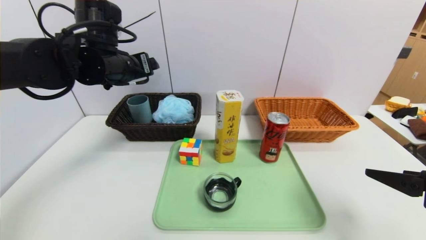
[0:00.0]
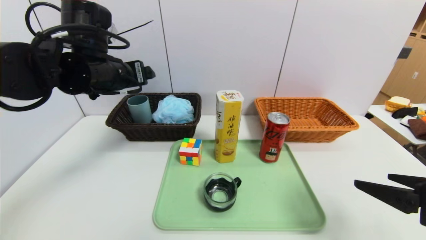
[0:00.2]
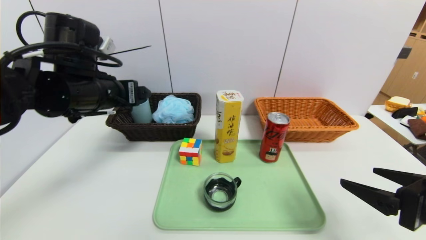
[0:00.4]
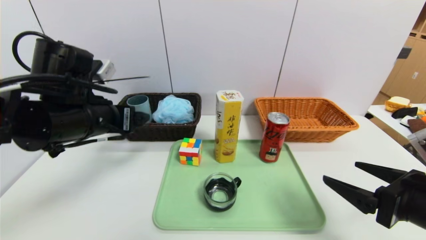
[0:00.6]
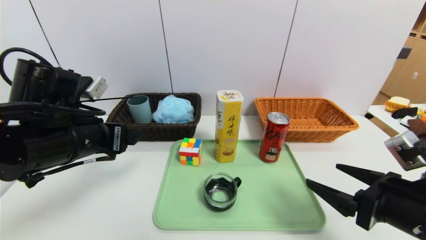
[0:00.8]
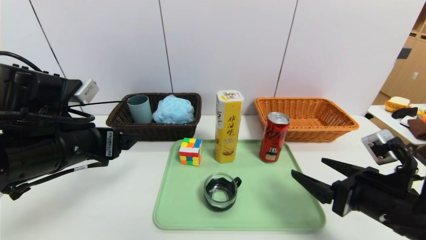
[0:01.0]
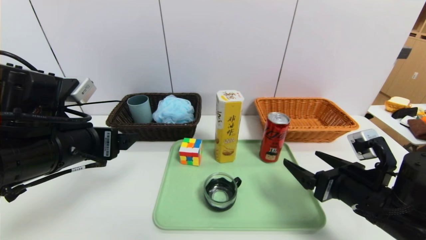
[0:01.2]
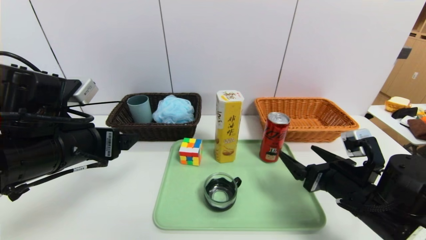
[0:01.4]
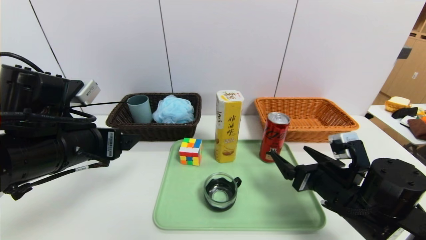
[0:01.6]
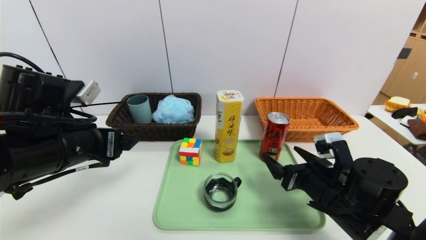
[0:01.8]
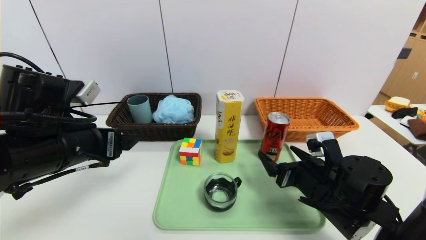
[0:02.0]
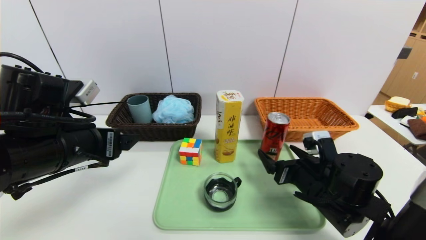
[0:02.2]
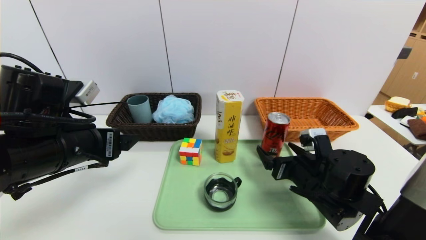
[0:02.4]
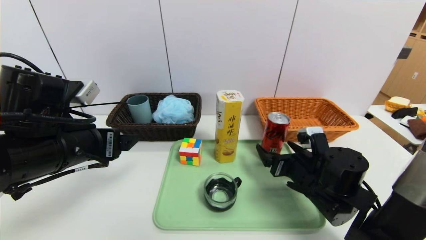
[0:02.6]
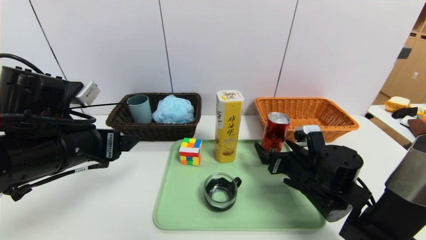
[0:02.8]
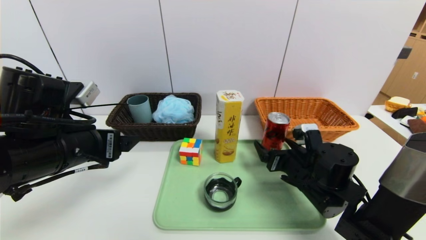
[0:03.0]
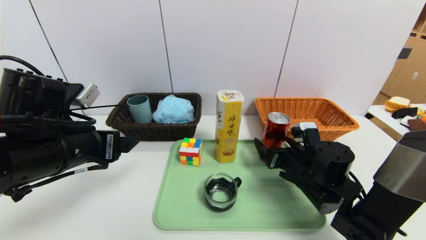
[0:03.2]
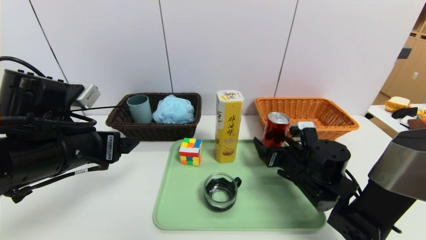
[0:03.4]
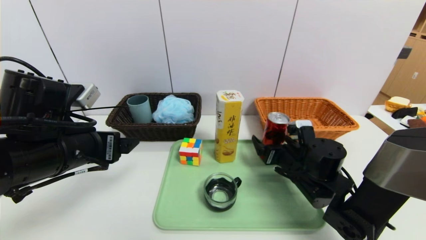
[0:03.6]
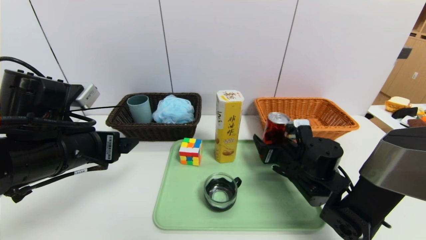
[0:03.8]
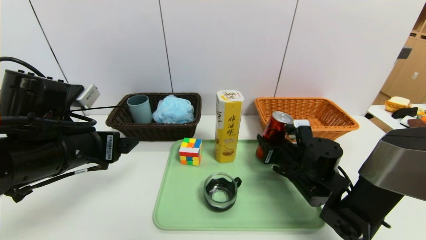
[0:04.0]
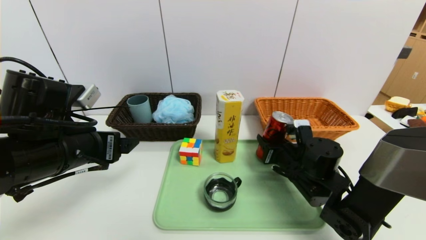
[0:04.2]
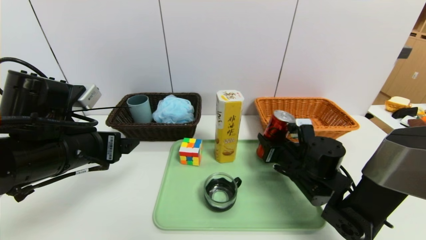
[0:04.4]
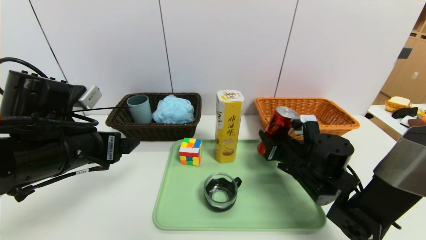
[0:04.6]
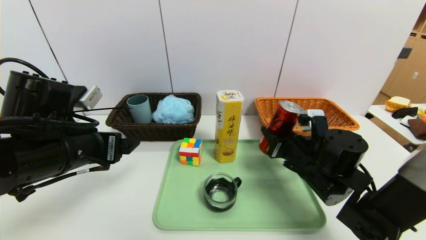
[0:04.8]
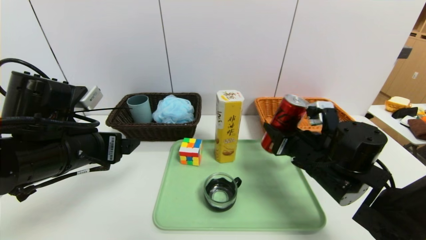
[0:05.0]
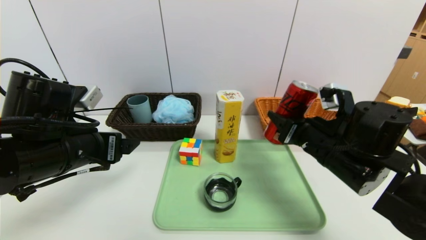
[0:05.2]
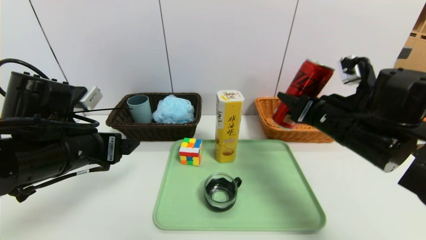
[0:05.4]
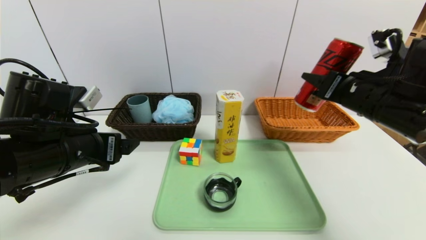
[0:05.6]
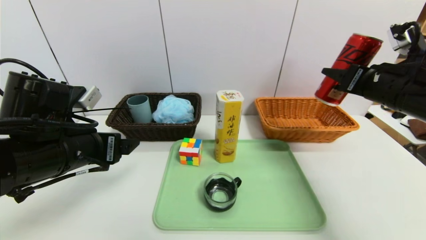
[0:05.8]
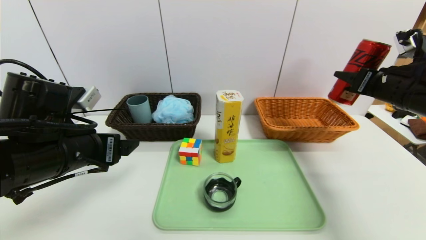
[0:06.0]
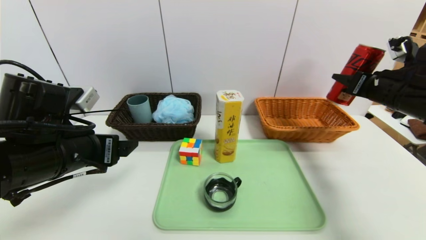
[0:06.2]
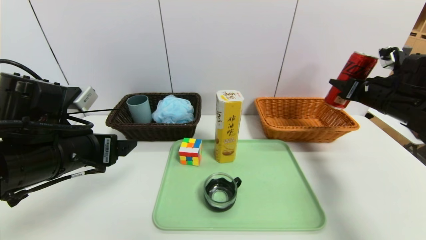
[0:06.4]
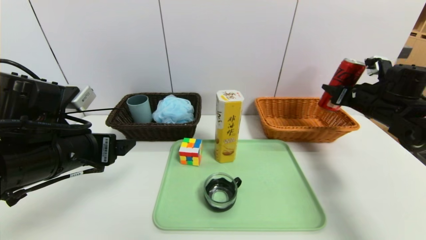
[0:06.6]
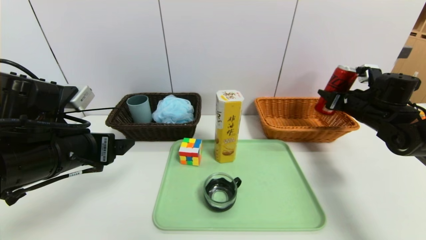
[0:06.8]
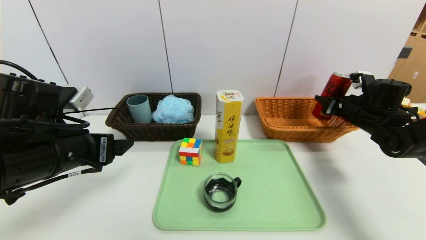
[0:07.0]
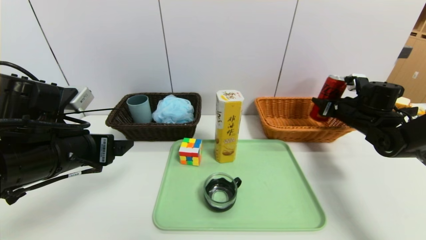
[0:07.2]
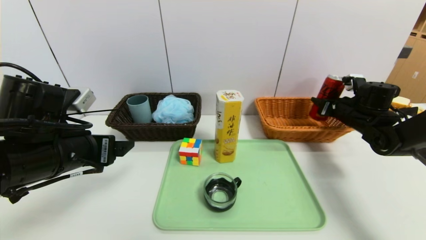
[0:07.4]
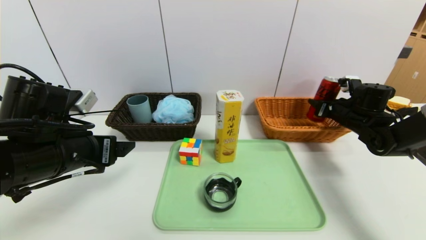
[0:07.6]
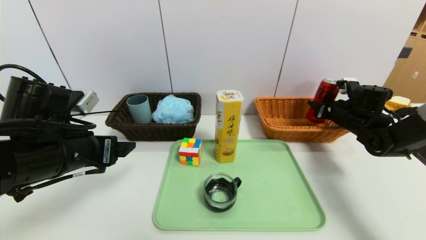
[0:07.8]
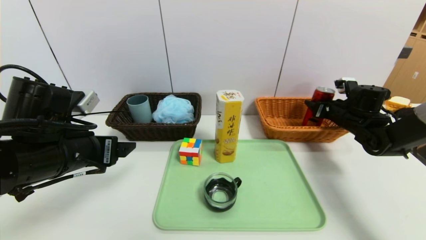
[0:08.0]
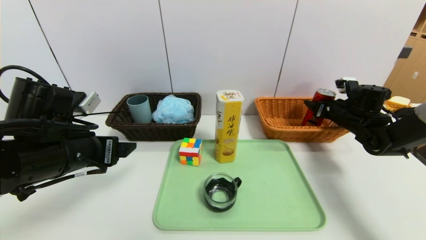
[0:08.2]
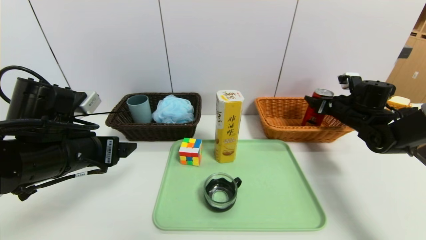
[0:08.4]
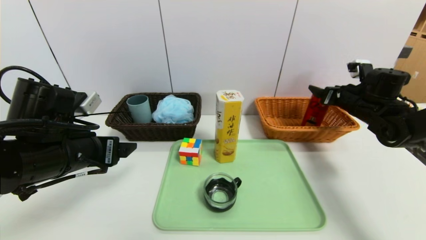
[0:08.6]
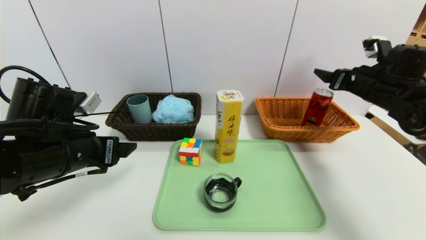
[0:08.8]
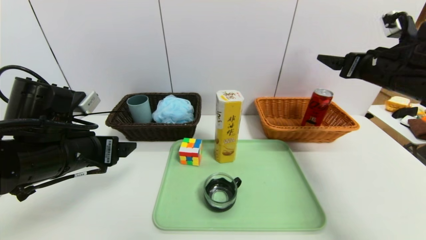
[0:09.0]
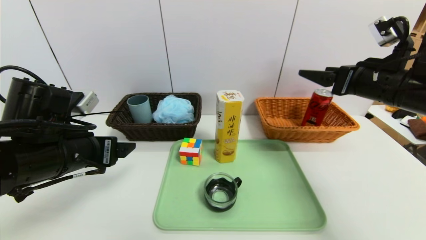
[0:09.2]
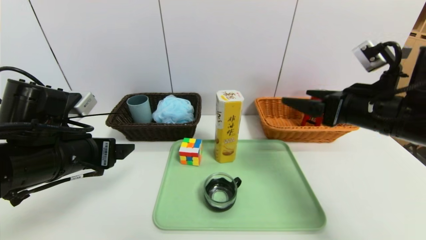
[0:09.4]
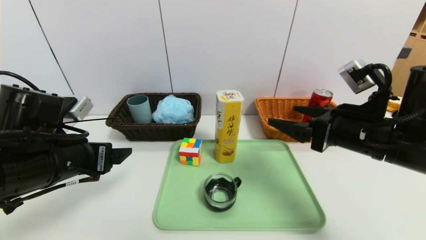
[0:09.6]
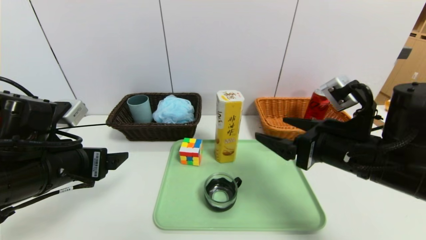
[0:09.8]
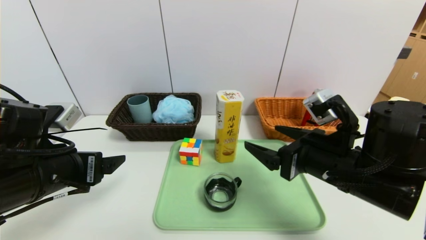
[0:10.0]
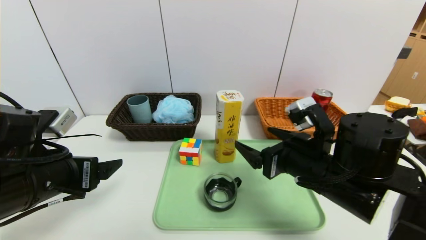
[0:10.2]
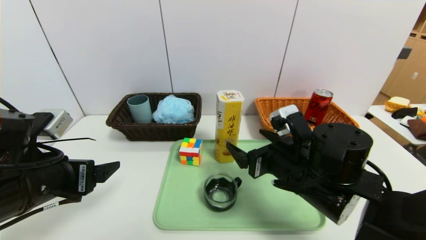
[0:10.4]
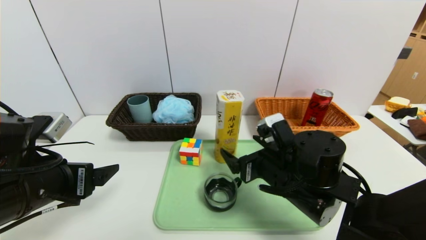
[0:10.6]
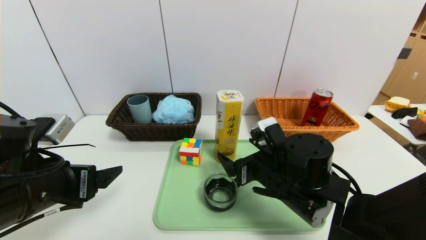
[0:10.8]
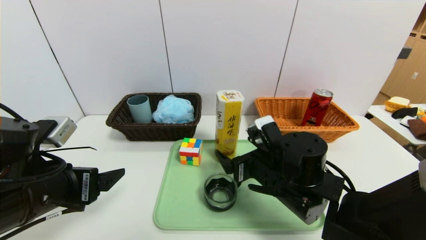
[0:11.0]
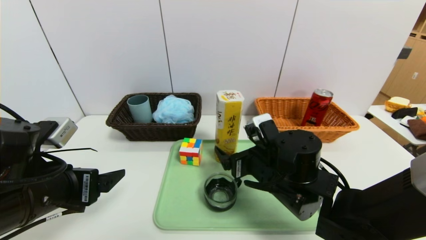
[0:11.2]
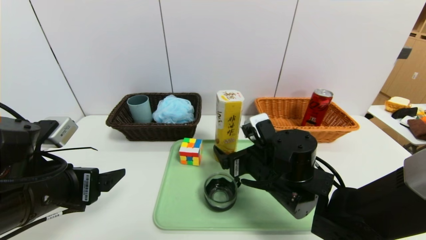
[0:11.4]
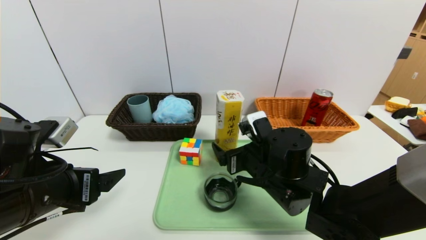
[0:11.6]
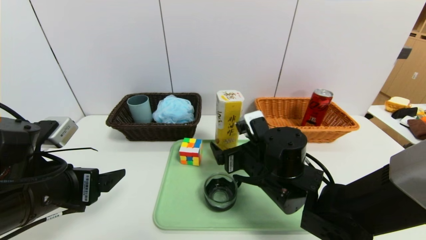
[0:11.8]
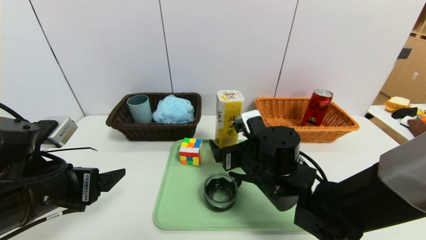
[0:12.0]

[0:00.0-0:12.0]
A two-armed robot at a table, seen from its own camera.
Task of the whole recording: place the food in the right basket with the right gripper, and place the non food items in the left basket with the left gripper.
Step, 0:00.0 to 0:08.6: Grasp the canned cola and put it in the right basket.
0:00.0 to 0:01.6: The left gripper heads backward and downward, covering about 15 cm. The right gripper is displaced downward, to the left and forward by about 20 cm.
0:01.6 to 0:03.0: The right gripper shifts roughly 5 cm forward.
0:03.0 to 0:04.4: The right gripper closes up.
0:04.4 to 0:06.0: The right gripper is displaced upward and to the right by about 25 cm.
0:06.0 to 0:07.6: The right gripper is displaced downward and forward by roughly 15 cm.
0:07.6 to 0:09.0: The right gripper goes some 15 cm upward and backward, and opens.
0:09.0 to 0:10.4: The right gripper shifts about 25 cm to the left, downward and backward. Meanwhile the left gripper changes place by some 5 cm.
0:10.4 to 0:12.0: The right gripper travels to the left by approximately 5 cm.

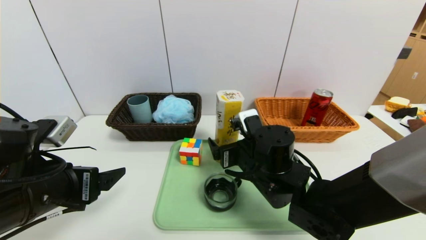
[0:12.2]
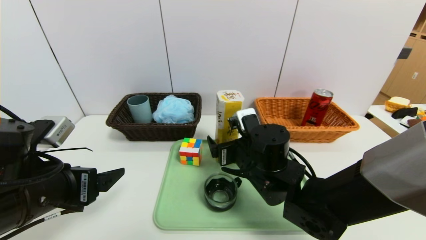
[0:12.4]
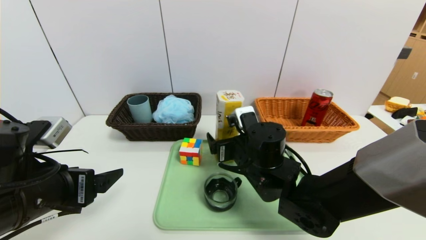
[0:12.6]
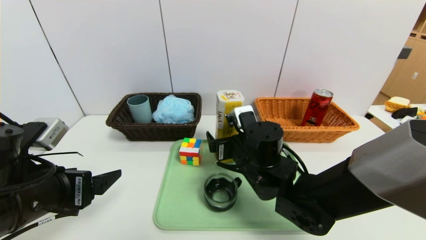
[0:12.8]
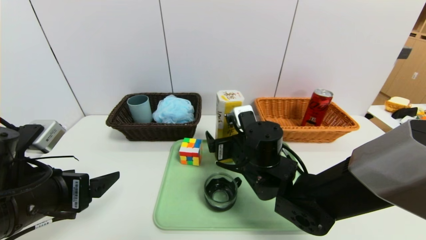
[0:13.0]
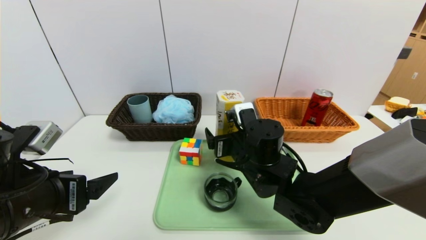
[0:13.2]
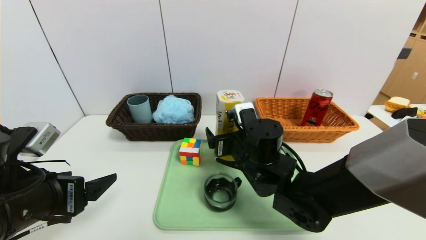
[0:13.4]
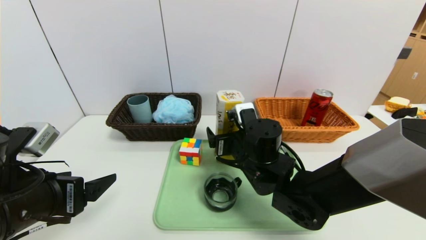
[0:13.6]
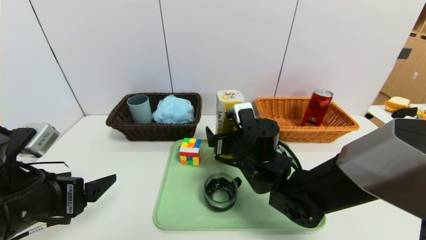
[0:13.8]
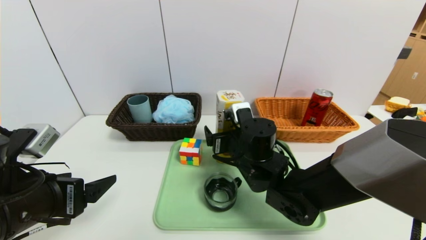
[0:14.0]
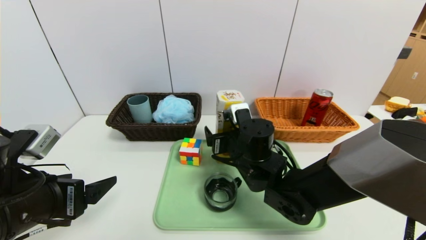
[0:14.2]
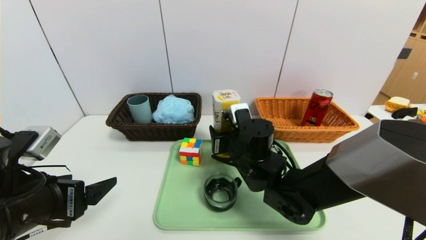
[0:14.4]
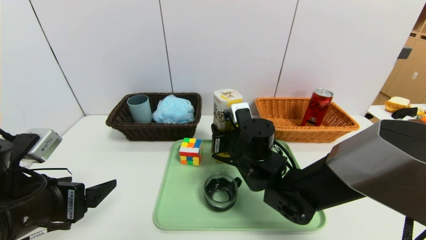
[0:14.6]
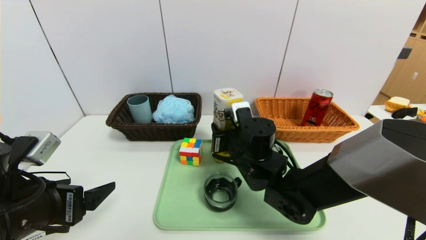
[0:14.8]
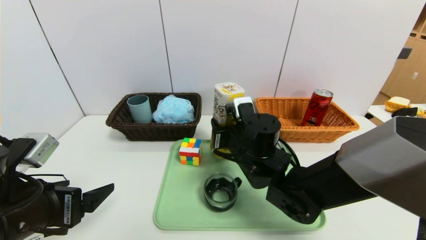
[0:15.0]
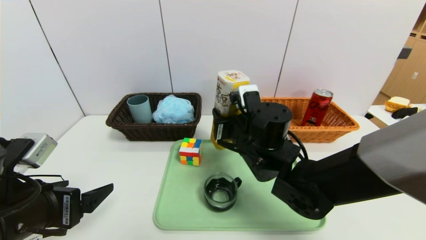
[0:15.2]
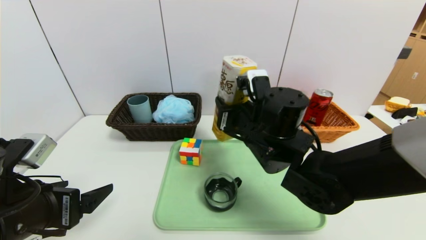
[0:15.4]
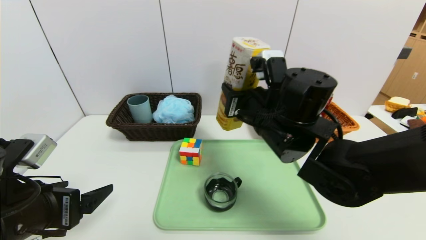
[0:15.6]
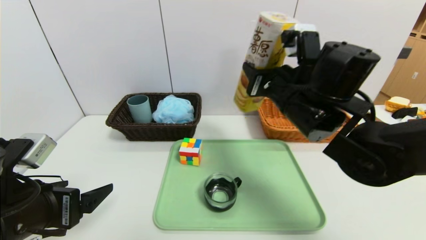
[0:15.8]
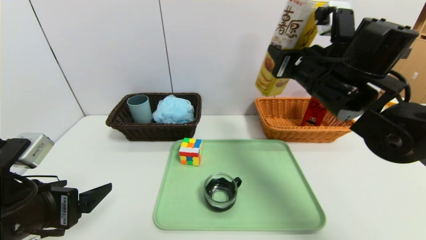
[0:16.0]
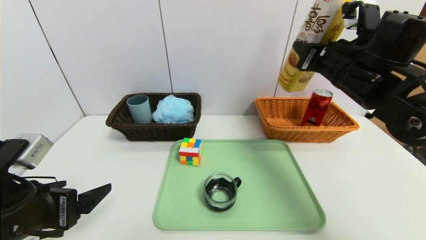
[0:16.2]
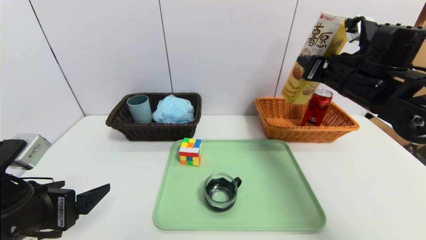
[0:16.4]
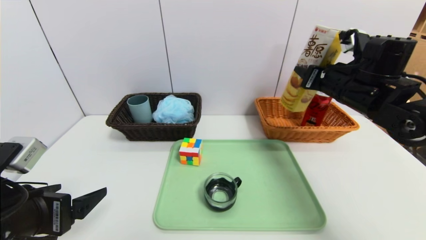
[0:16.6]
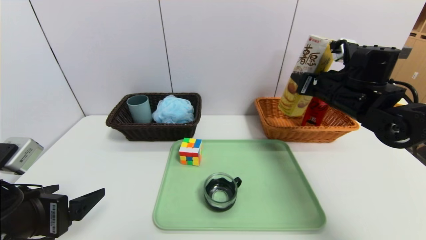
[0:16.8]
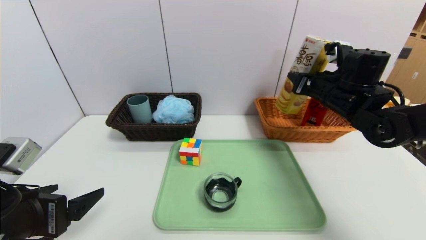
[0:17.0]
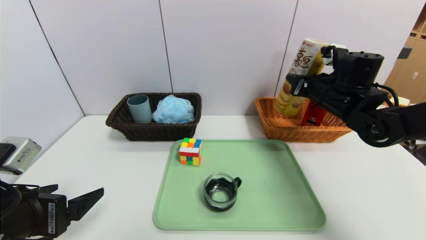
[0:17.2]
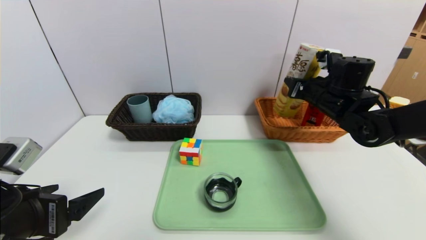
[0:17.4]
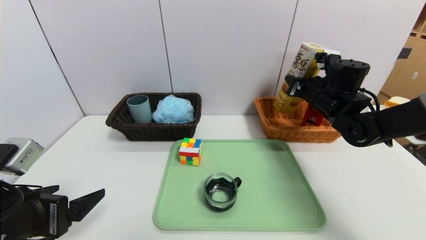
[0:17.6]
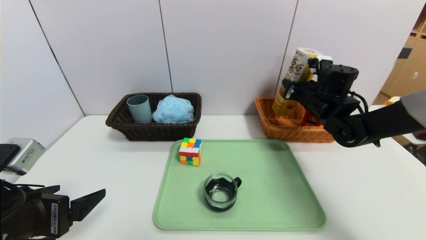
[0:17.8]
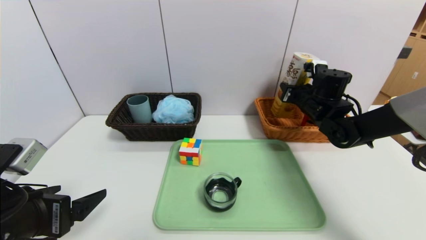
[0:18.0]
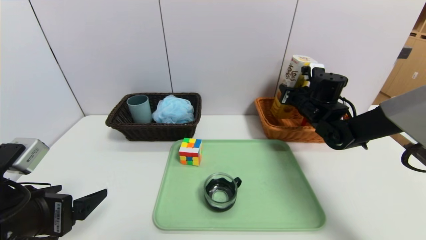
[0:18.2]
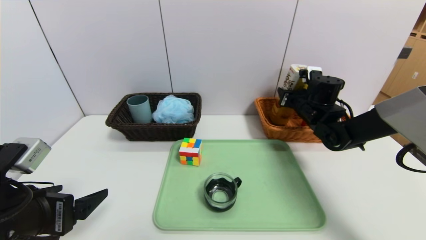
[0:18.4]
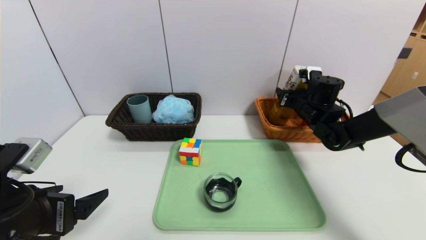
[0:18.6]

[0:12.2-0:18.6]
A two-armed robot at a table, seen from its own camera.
Task of the whole recording: place the food in the right basket with the right gripper, and place the non food items in the left basket with the left gripper.
0:12.2 to 0:13.8: There are only small adjustments of the grippers.
0:13.8 to 0:15.4: The right gripper is displaced upward by about 5 cm, and closes.
0:15.4 to 0:17.0: The right gripper travels to the right and forward by about 20 cm.
0:17.0 to 0:18.6: The right gripper shifts some 10 cm forward and downward.
